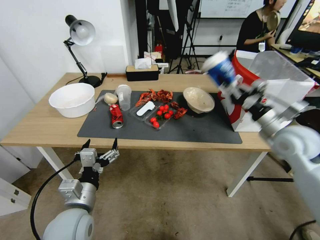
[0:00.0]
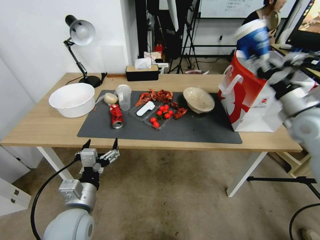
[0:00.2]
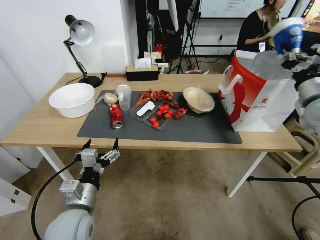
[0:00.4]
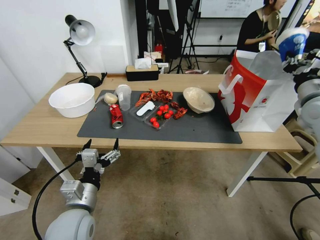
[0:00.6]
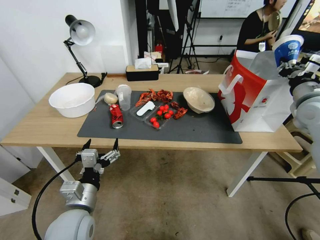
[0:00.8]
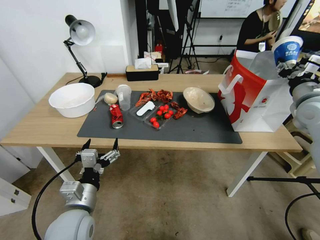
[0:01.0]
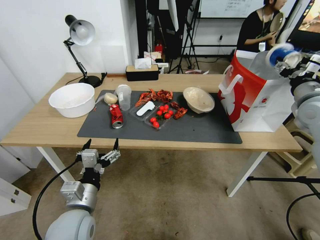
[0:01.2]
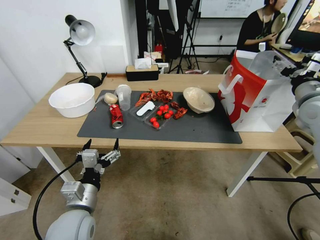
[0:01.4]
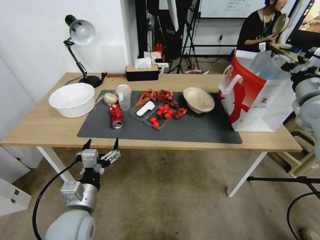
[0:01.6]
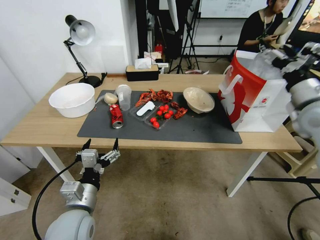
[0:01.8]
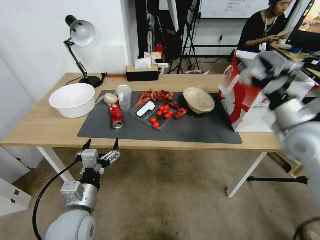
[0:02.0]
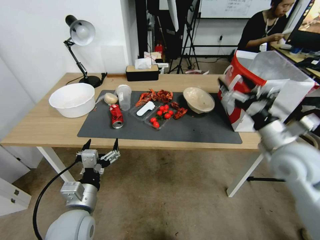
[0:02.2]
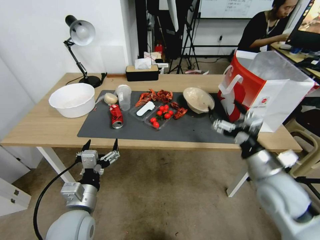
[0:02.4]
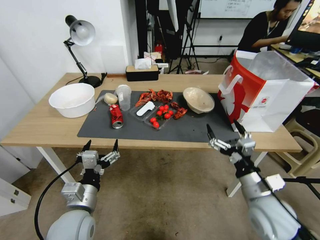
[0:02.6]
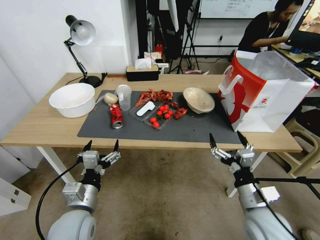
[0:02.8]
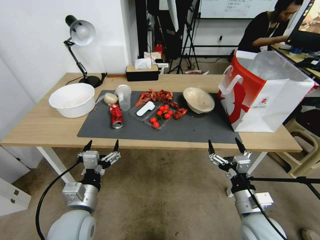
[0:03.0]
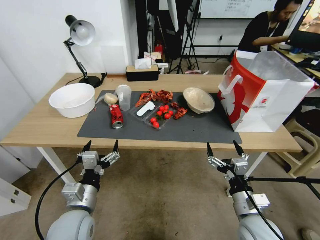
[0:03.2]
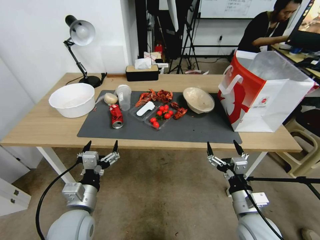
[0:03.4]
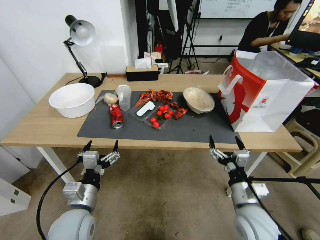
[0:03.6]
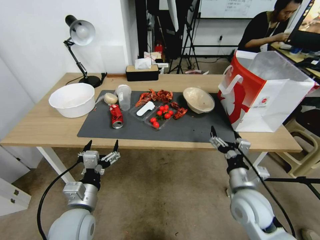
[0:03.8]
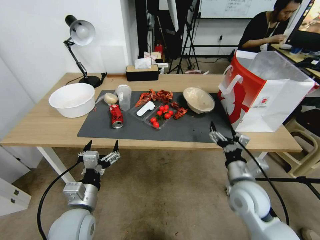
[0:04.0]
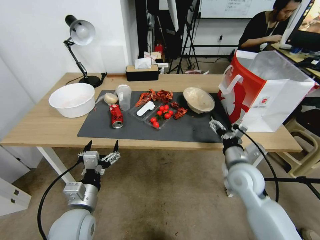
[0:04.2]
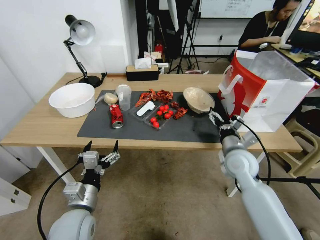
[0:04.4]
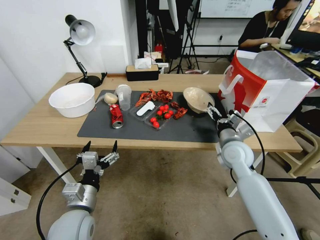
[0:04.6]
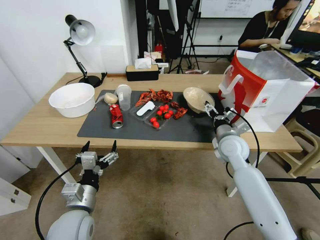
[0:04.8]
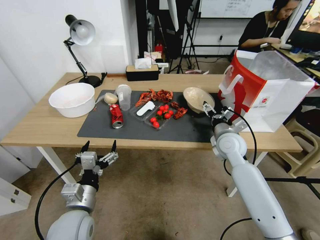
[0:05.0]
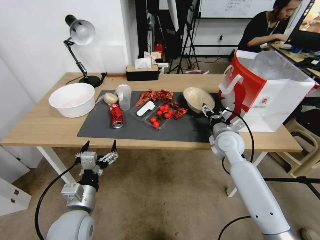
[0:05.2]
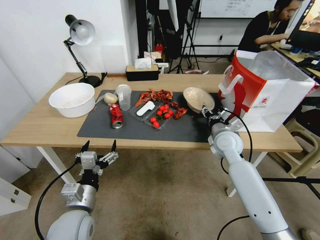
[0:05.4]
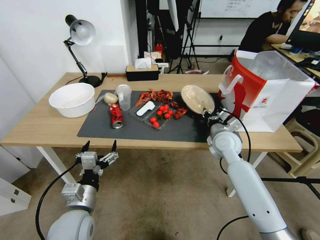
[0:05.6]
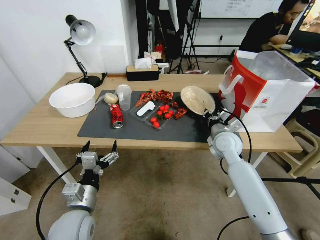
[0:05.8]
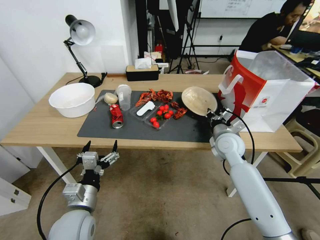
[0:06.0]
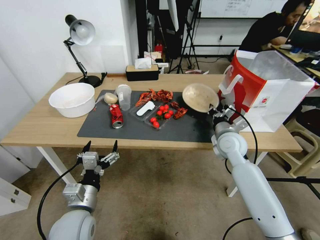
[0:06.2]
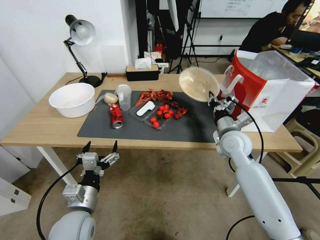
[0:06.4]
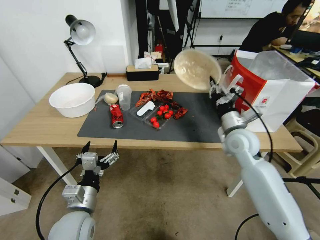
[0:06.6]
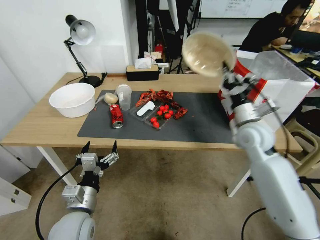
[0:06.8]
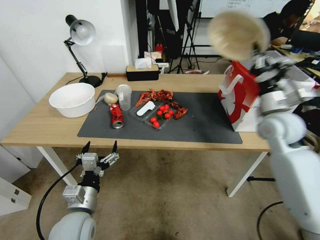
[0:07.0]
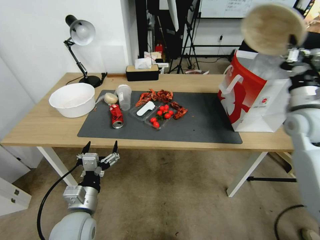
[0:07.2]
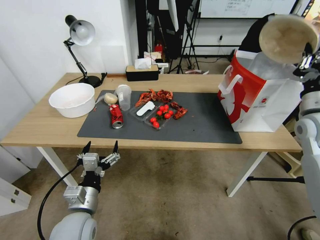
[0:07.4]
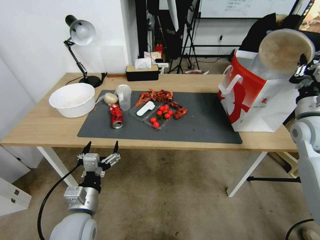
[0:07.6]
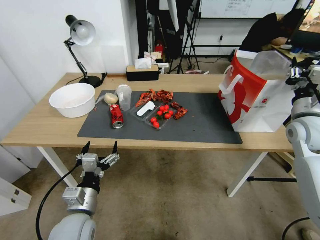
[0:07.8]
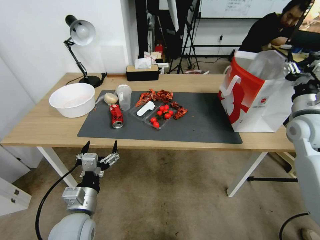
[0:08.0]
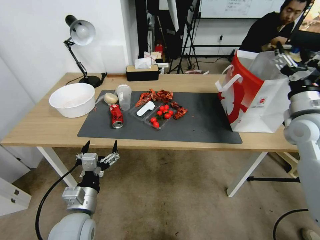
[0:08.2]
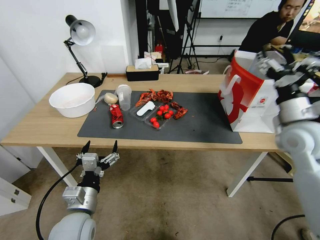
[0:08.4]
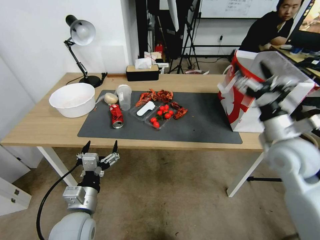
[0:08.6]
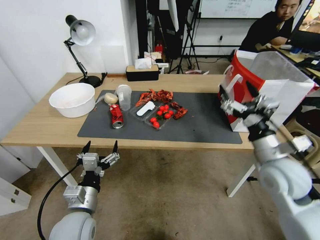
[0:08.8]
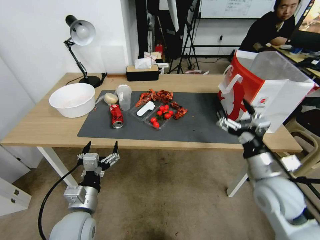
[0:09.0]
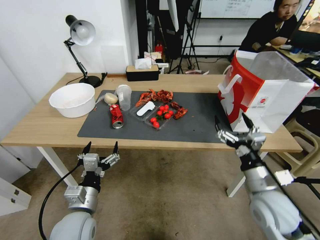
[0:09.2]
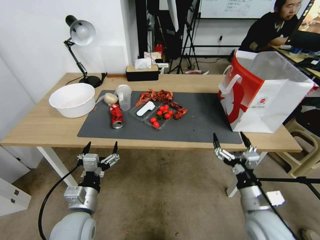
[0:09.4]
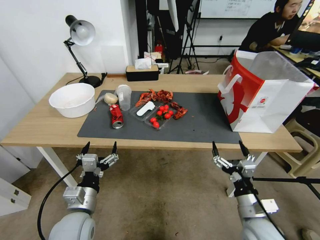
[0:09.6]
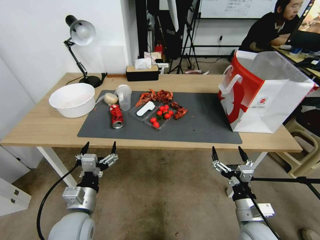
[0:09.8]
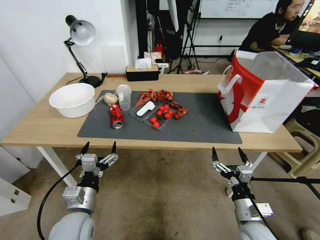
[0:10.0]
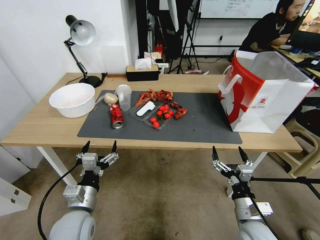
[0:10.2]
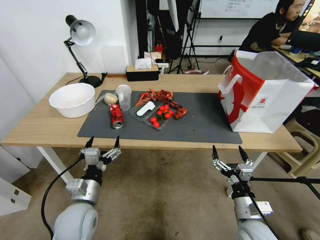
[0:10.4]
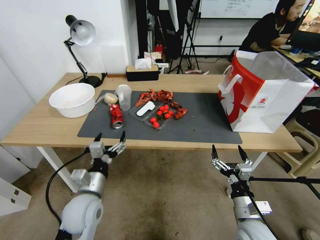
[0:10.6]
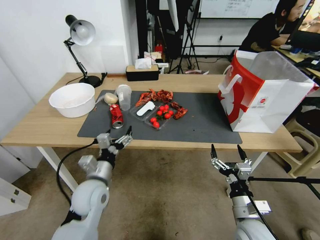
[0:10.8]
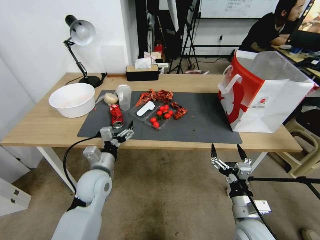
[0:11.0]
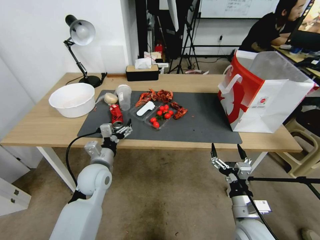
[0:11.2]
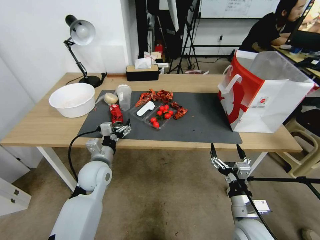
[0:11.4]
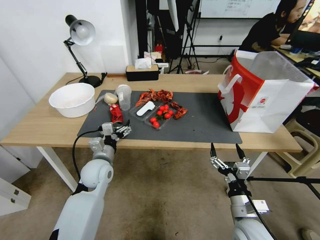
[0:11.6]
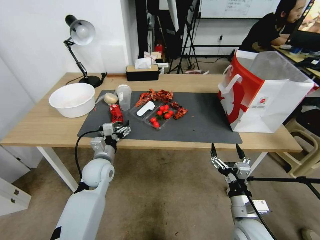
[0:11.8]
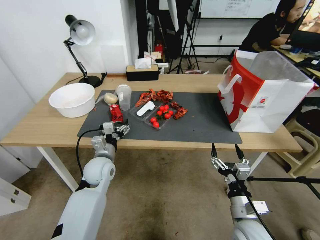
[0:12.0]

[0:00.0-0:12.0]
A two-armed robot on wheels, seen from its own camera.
0:00.0 to 0:01.6: The right gripper moves upward and to the right, about 10 cm, and opens.
0:01.6 to 0:03.0: The right gripper goes approximately 35 cm downward, backward and to the left.
0:03.0 to 0:04.4: The right gripper travels forward by approximately 15 cm.
0:04.4 to 0:06.0: The right gripper heads forward, covering some 10 cm, and closes.
0:06.0 to 0:07.6: The right gripper heads to the right and upward, covering some 20 cm.
0:07.6 to 0:09.0: The right gripper moves to the left, backward and downward, about 20 cm, and opens its fingers.
0:09.0 to 0:10.4: The right gripper travels downward and backward by some 15 cm.
0:10.4 to 0:12.0: The left gripper is displaced forward by approximately 15 cm.

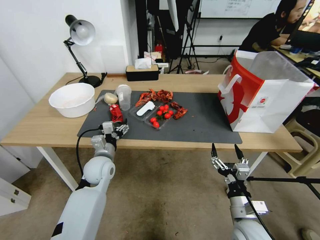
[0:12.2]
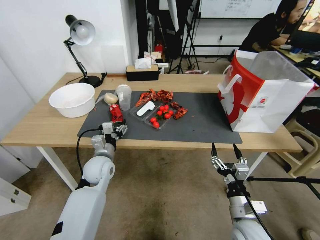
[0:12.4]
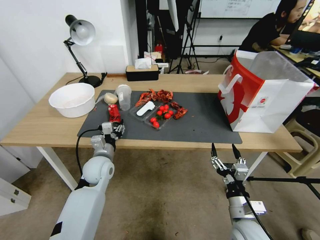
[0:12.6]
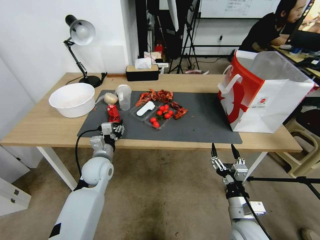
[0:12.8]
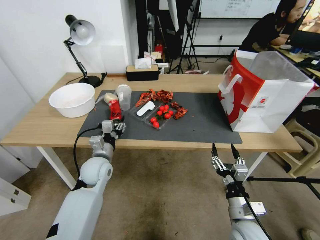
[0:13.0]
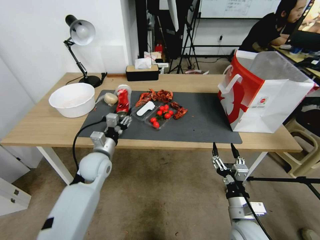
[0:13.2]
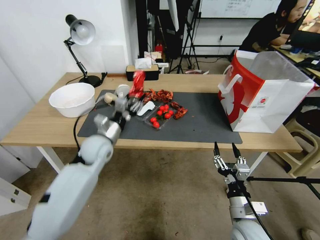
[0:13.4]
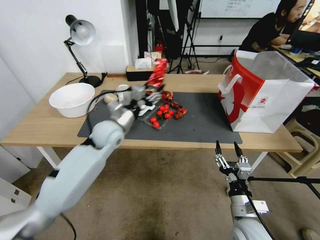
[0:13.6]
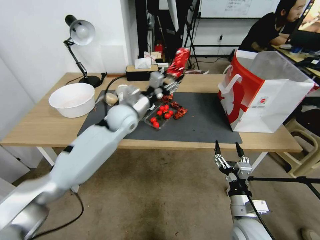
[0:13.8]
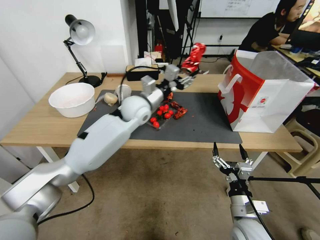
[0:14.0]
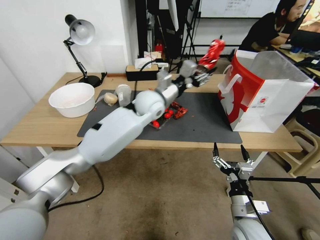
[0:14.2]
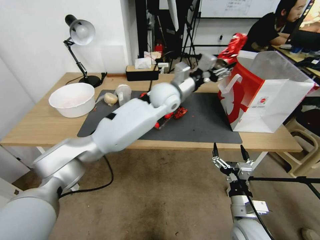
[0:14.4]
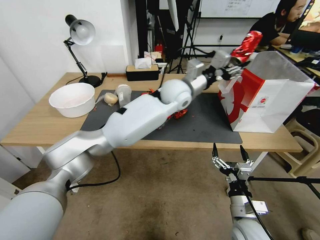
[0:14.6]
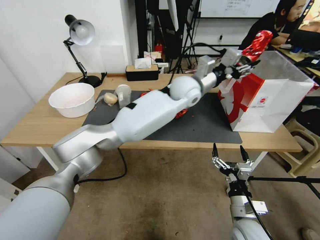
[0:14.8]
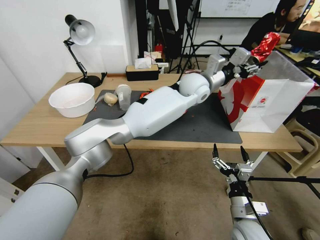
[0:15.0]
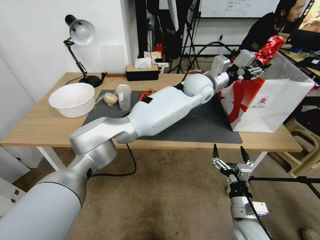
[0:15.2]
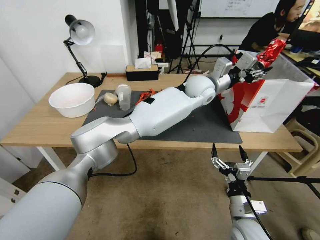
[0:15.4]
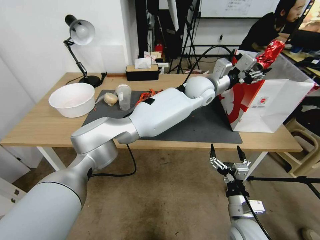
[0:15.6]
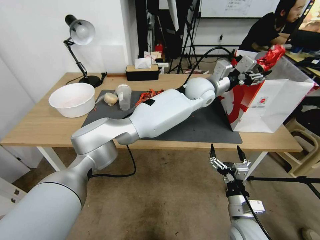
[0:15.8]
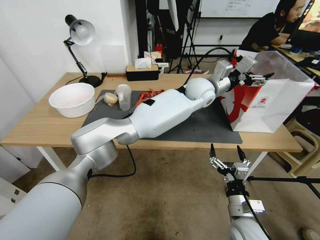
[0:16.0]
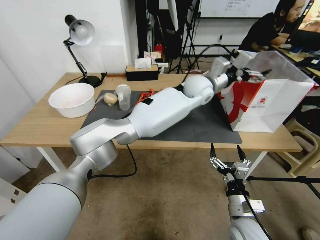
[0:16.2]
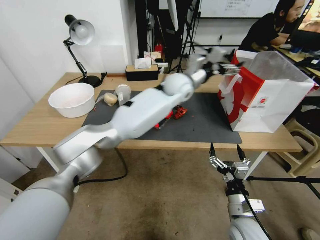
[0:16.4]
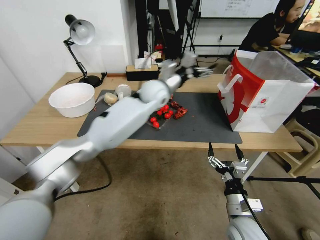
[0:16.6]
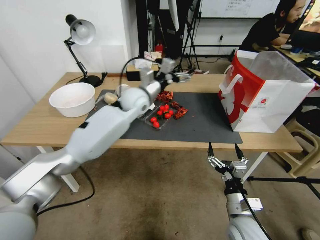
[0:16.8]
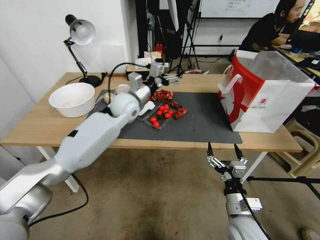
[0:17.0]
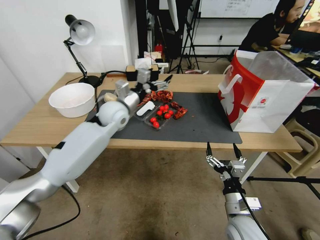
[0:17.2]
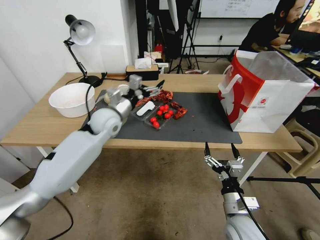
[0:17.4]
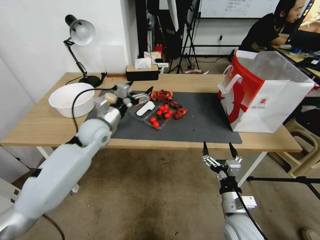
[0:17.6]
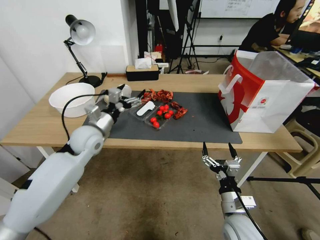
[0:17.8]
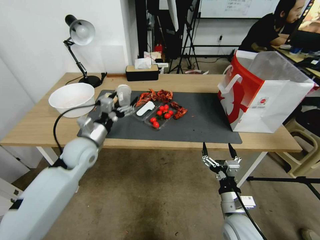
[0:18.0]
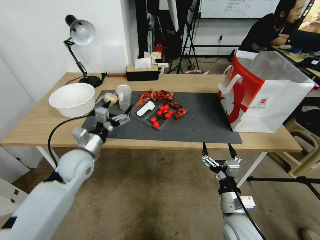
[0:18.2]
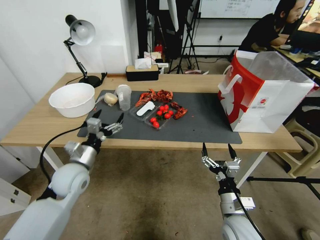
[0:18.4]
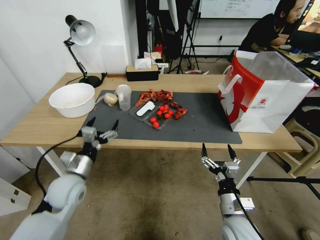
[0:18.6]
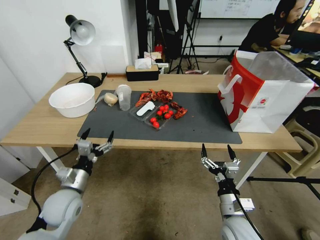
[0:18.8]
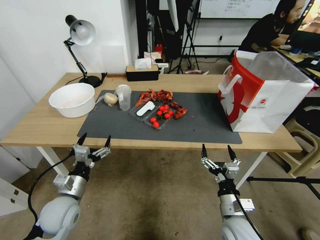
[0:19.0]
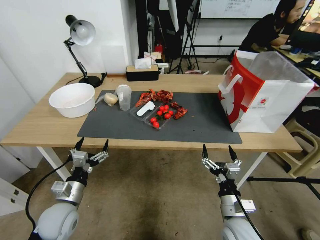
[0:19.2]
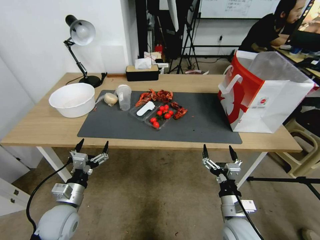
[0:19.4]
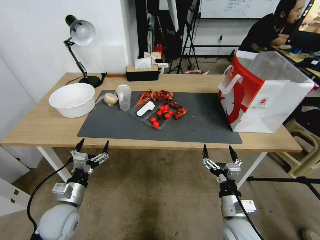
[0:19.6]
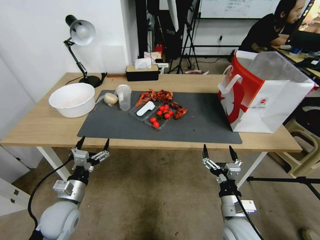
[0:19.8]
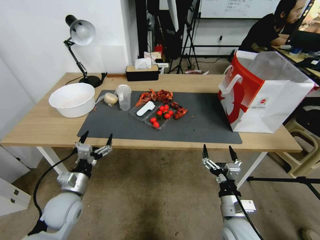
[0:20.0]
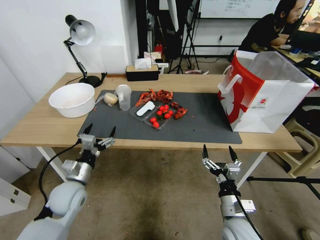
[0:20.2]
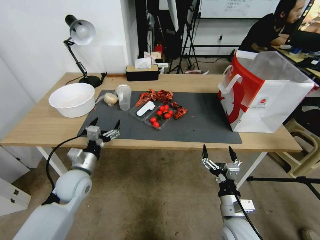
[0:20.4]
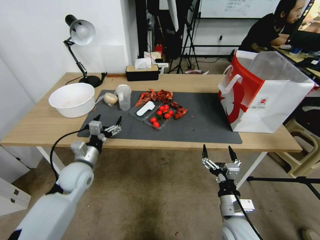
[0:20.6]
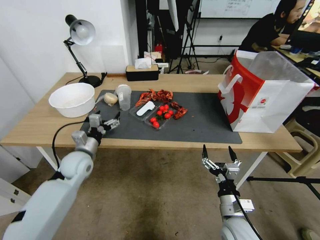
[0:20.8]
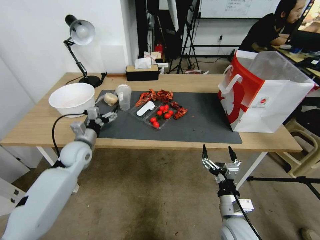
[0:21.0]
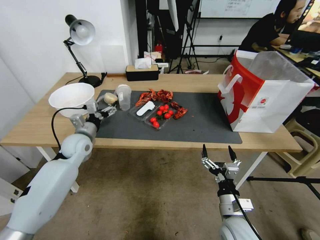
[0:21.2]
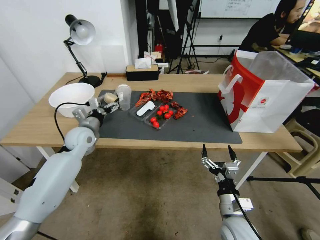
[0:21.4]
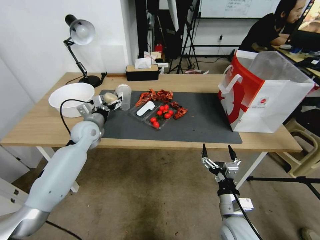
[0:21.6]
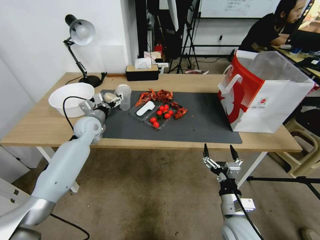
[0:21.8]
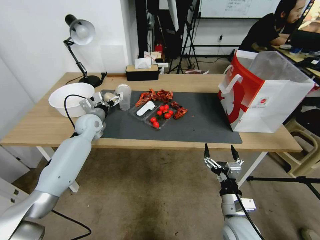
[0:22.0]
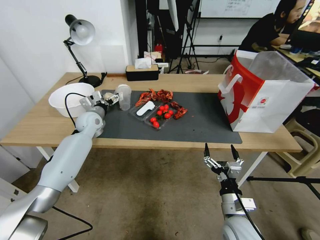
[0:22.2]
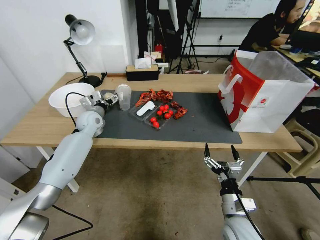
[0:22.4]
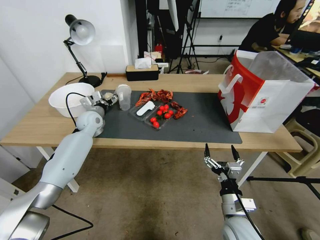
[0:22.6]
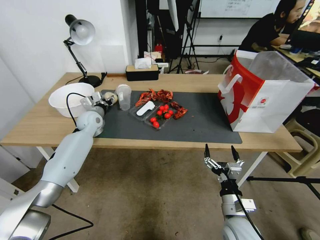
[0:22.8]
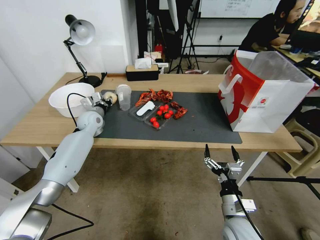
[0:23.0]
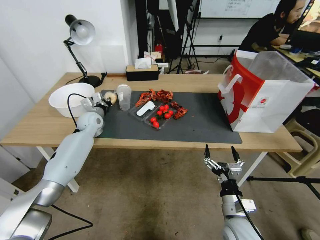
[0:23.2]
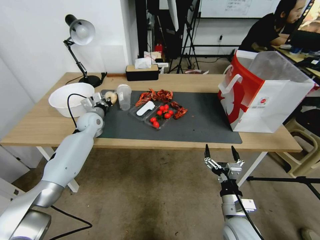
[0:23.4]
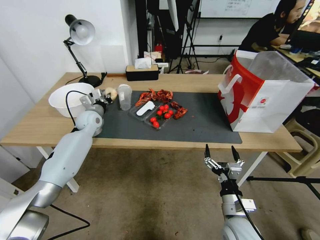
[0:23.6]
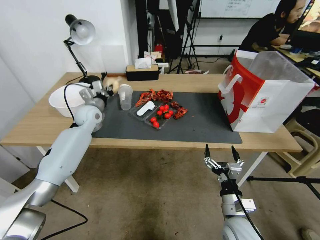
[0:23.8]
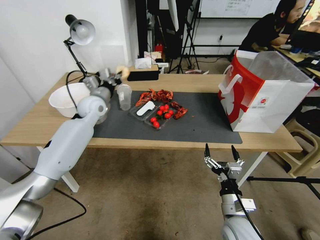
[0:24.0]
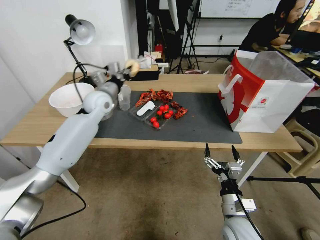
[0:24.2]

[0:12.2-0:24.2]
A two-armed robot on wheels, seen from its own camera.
0:12.2 to 0:13.8: The left gripper travels upward, forward and to the right by some 20 cm, and closes.
0:13.8 to 0:15.2: The left gripper goes approximately 25 cm to the right.
0:15.2 to 0:16.6: The left gripper heads to the left, covering about 10 cm, and opens.
0:16.6 to 0:18.2: The left gripper is displaced to the left, backward and downward by roughly 35 cm.
0:18.2 to 0:19.8: The left gripper shifts roughly 15 cm backward and downward.
0:19.8 to 0:21.2: The left gripper shifts roughly 20 cm forward.
0:21.2 to 0:22.6: The left gripper is displaced forward by some 10 cm.
0:22.6 to 0:24.2: The left gripper goes about 15 cm upward and to the right, and closes.
